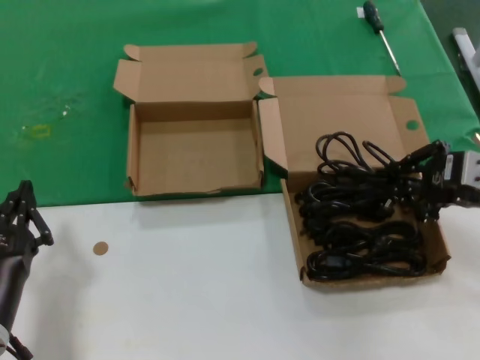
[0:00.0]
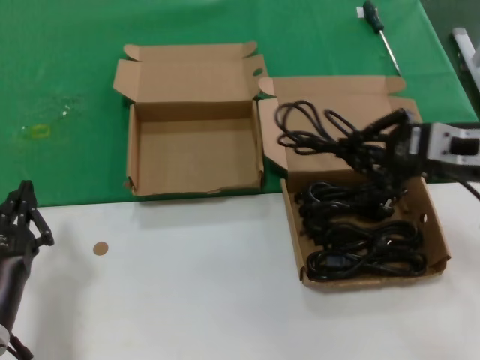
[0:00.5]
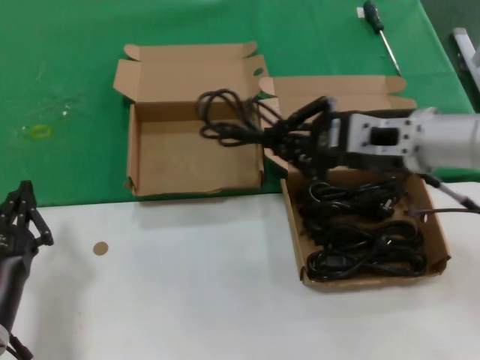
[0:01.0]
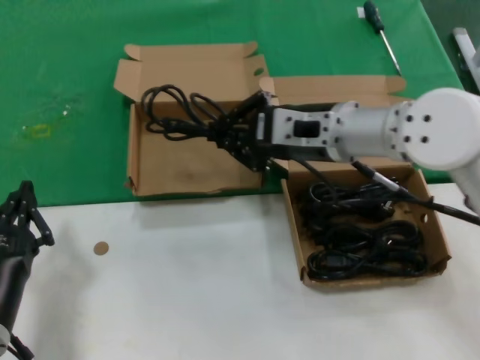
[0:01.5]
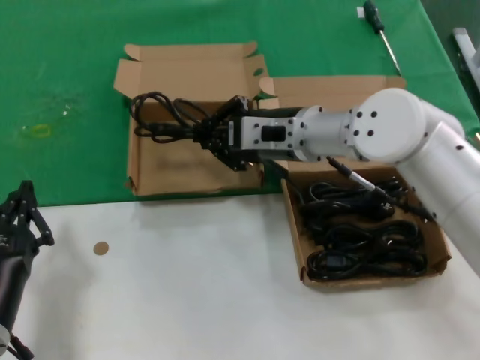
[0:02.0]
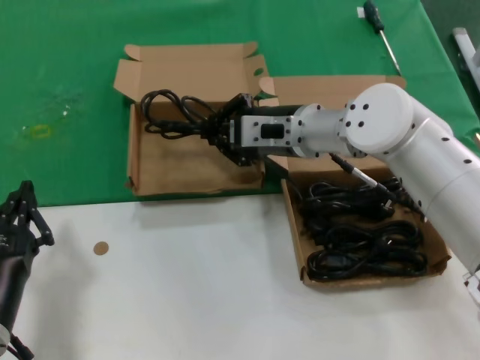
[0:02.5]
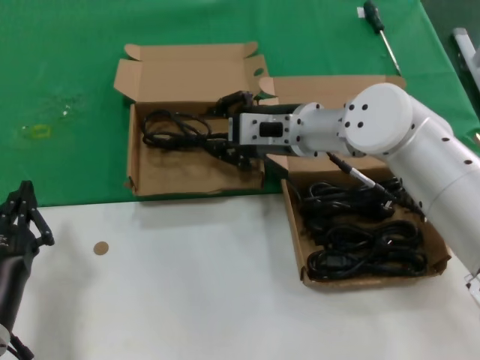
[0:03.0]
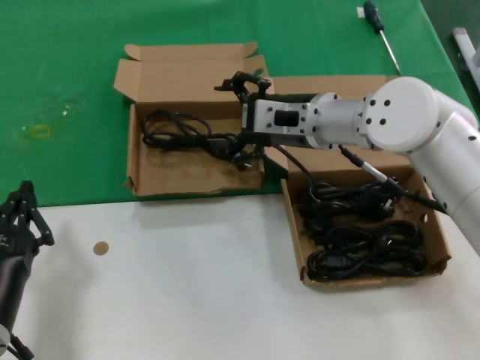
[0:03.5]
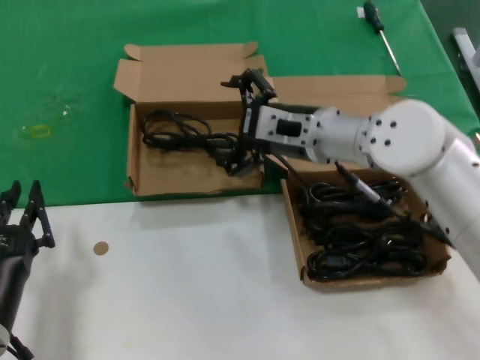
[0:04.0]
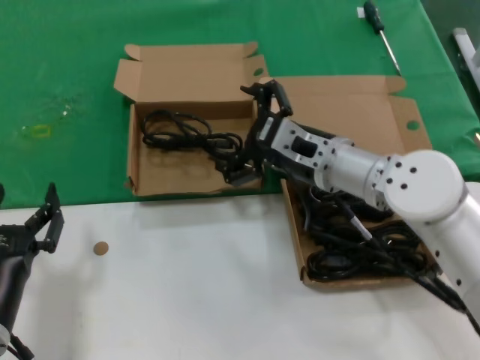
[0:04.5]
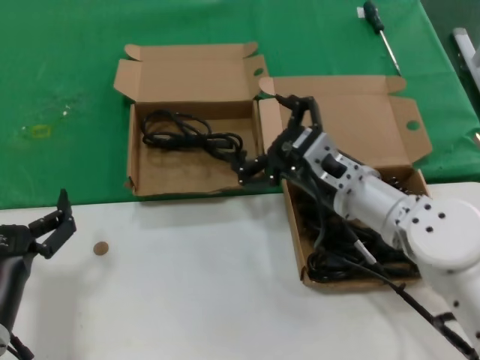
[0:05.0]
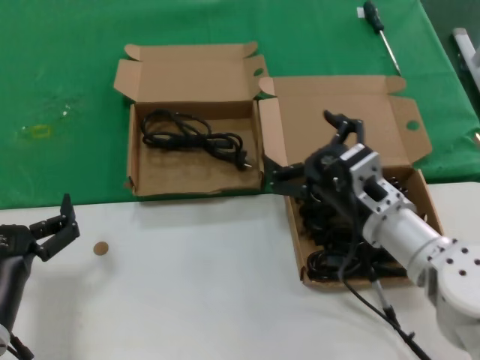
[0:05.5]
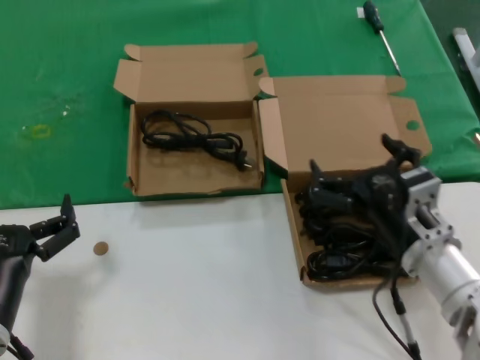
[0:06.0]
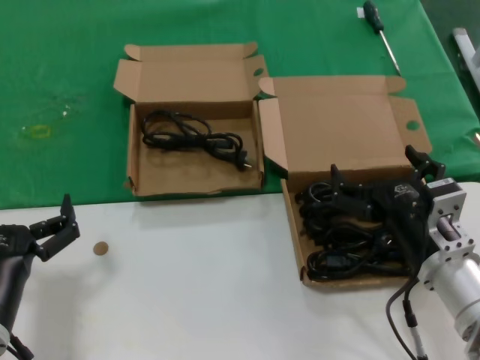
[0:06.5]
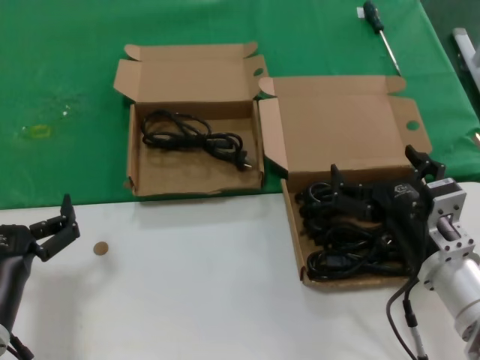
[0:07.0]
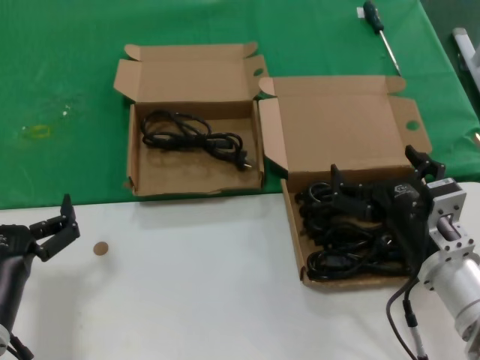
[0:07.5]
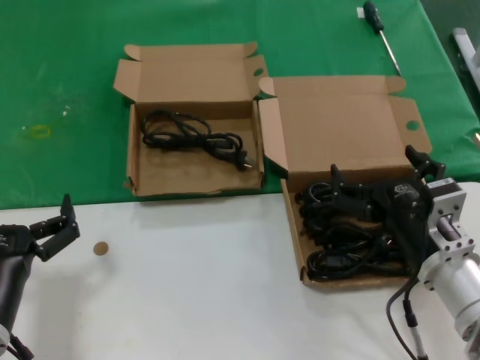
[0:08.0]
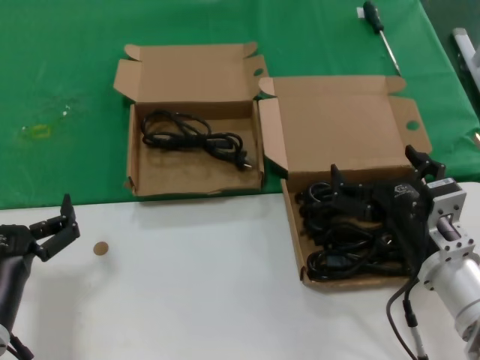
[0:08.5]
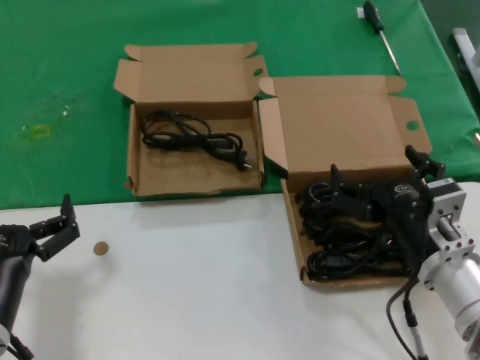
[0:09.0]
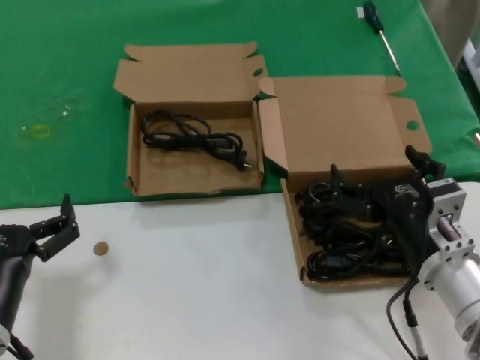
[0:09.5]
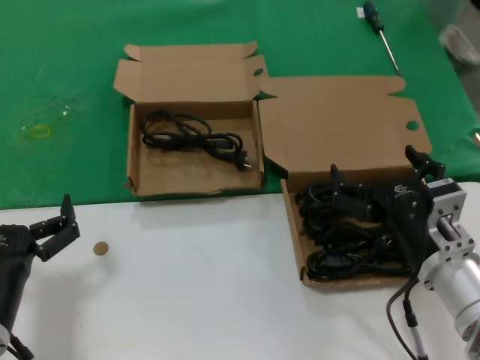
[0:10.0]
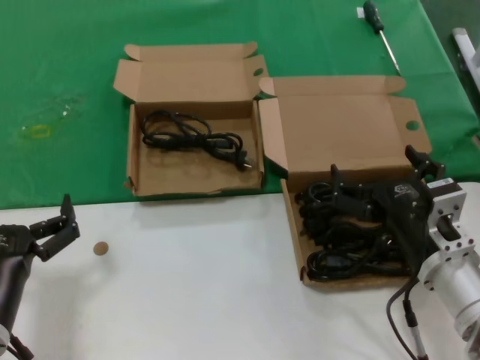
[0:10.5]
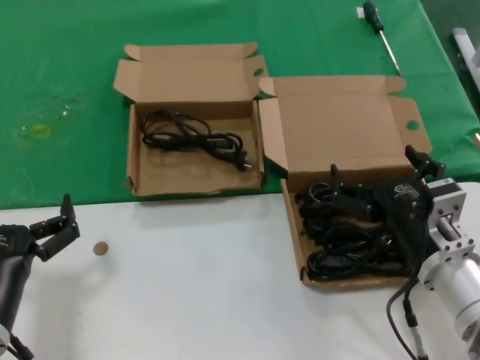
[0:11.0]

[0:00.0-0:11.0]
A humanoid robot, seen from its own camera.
Task of the whole recording: take the parts from the box containing them and put them into an empty box.
Step, 0:00.0 to 0:03.0: Place the data cable in the another box.
0:00.0 to 0:02.0: The right hand goes about 25 cm to the left and forward.
0:02.0 to 0:03.5: There are only small adjustments of the hands.
0:03.5 to 0:05.5: The right hand heads backward, downward and to the right, covering approximately 20 cm.
0:05.5 to 0:07.5: The right hand travels backward by some 5 cm.
0:07.5 to 0:11.0: Neither hand changes place.

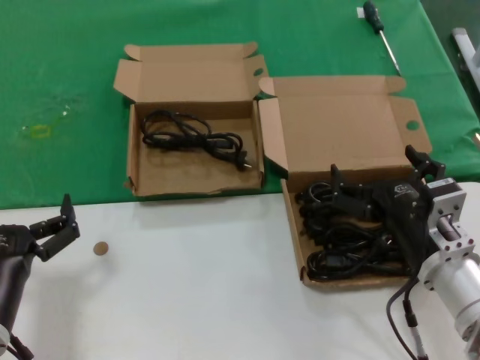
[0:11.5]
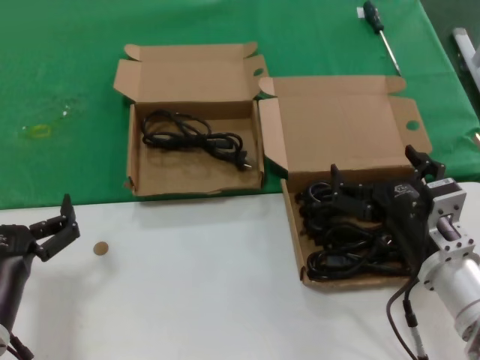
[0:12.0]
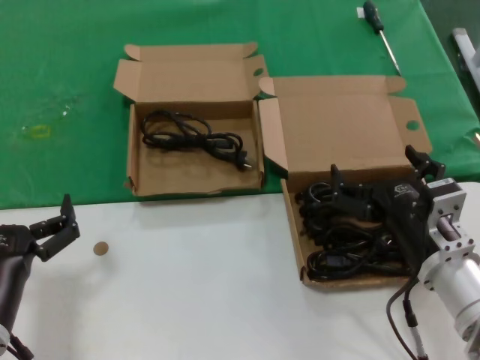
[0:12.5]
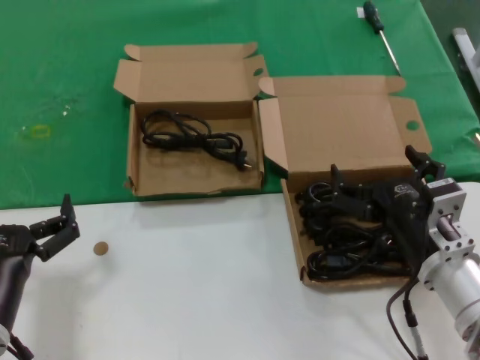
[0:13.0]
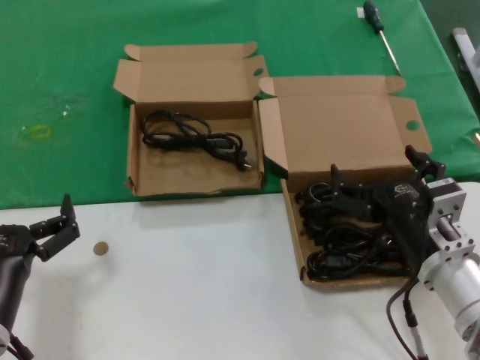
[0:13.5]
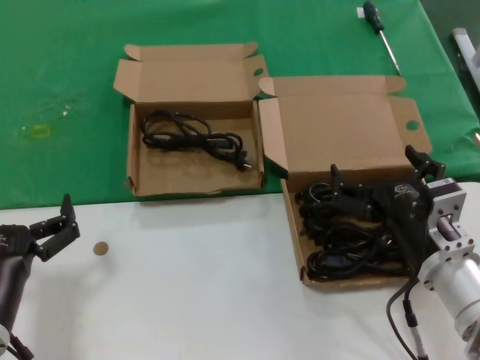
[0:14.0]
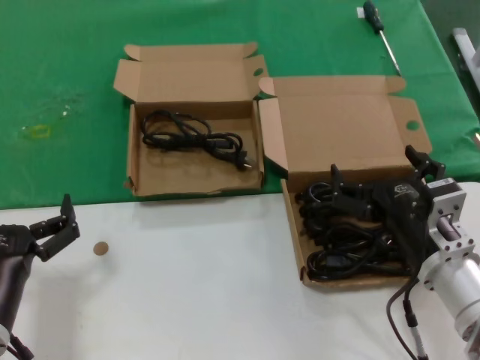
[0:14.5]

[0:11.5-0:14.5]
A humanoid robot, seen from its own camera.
Task of the whole recording: take the parts from the box containing them and put them into an empty box.
0:11.5 to 0:14.5: Both hands stay put.
